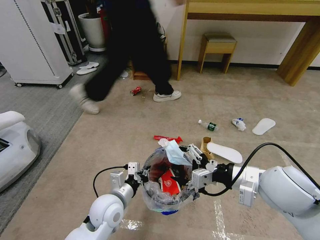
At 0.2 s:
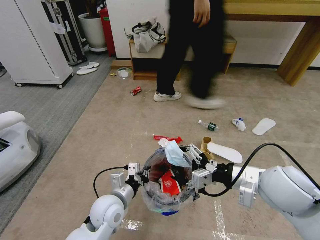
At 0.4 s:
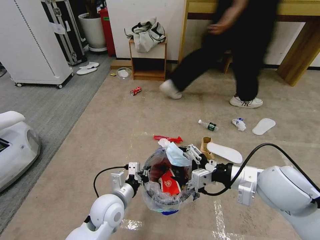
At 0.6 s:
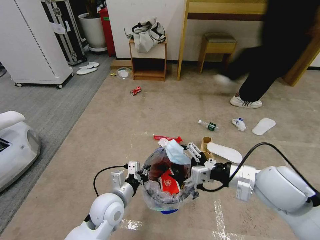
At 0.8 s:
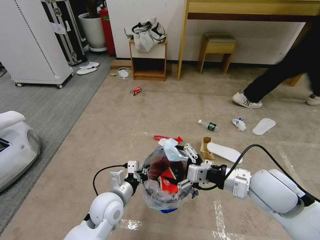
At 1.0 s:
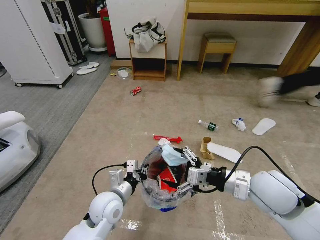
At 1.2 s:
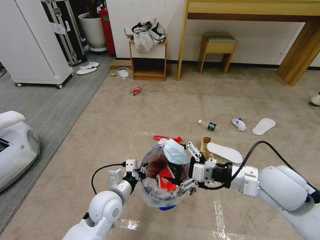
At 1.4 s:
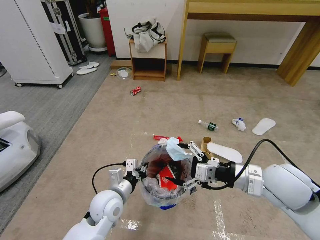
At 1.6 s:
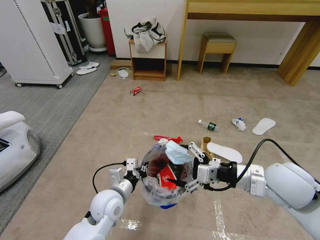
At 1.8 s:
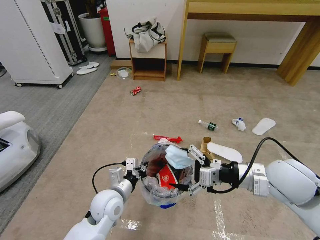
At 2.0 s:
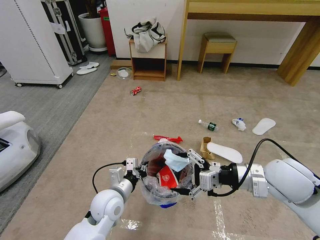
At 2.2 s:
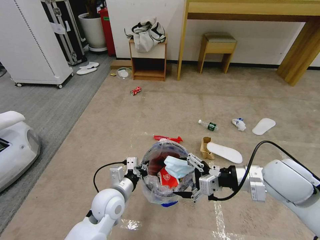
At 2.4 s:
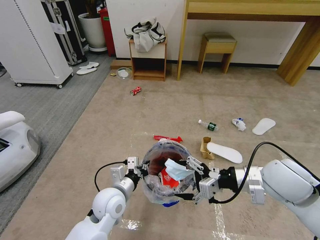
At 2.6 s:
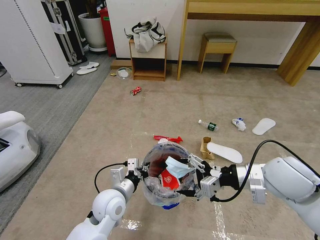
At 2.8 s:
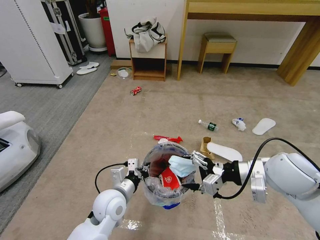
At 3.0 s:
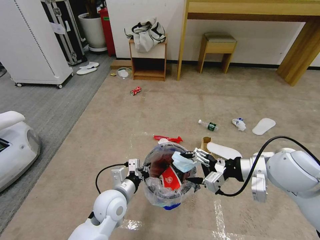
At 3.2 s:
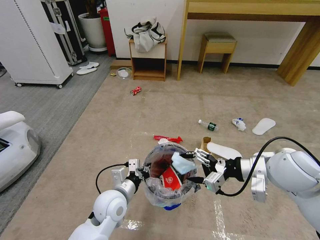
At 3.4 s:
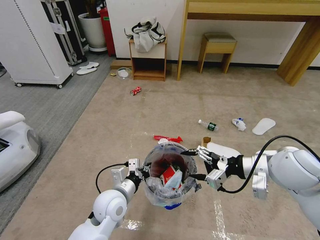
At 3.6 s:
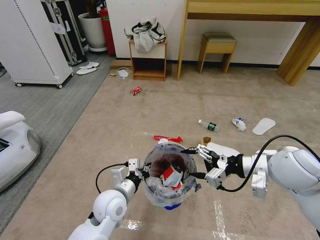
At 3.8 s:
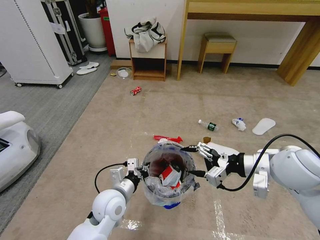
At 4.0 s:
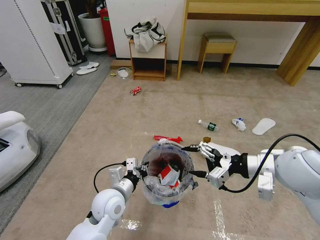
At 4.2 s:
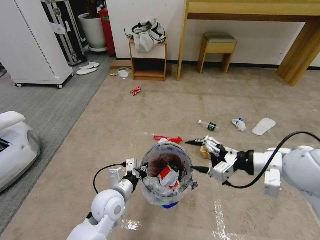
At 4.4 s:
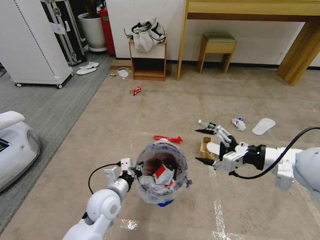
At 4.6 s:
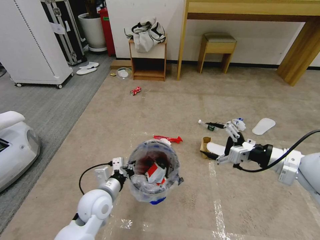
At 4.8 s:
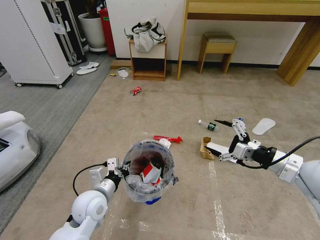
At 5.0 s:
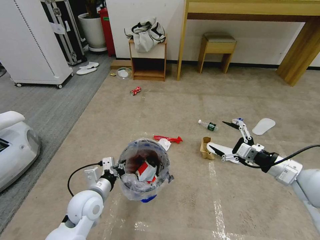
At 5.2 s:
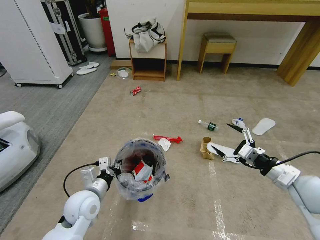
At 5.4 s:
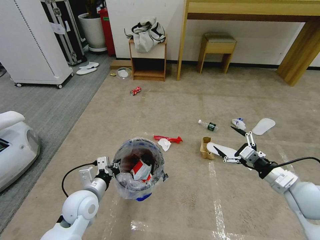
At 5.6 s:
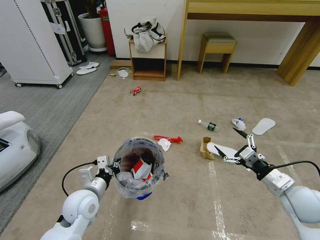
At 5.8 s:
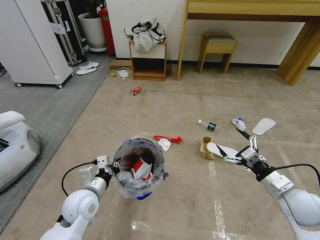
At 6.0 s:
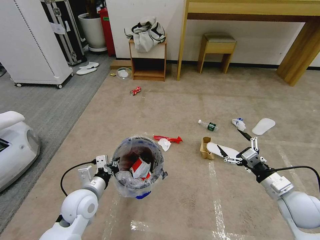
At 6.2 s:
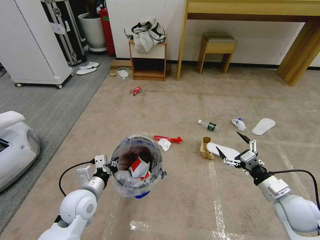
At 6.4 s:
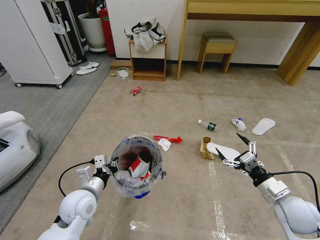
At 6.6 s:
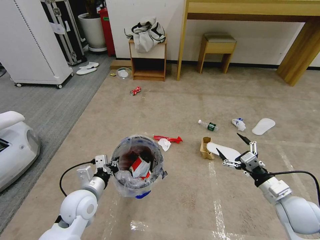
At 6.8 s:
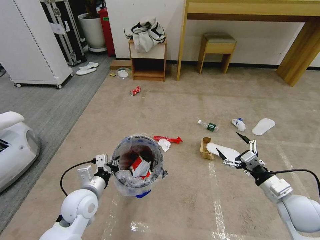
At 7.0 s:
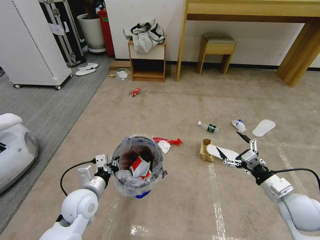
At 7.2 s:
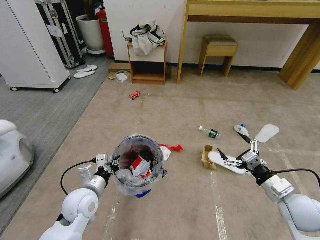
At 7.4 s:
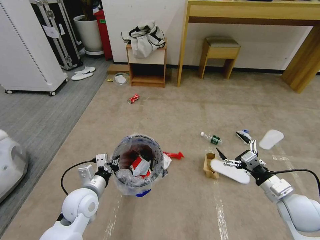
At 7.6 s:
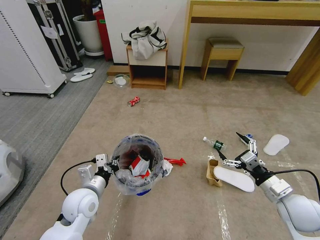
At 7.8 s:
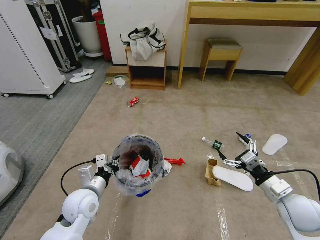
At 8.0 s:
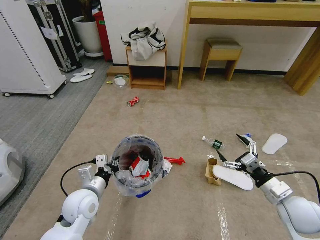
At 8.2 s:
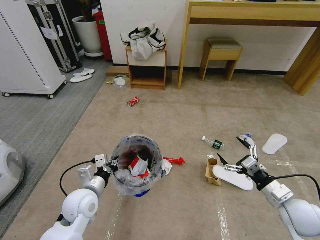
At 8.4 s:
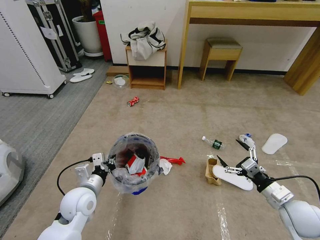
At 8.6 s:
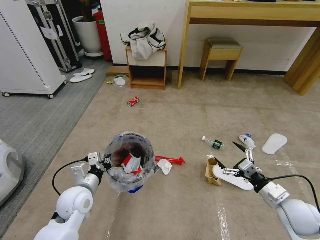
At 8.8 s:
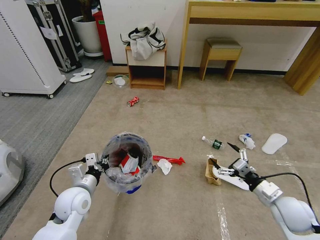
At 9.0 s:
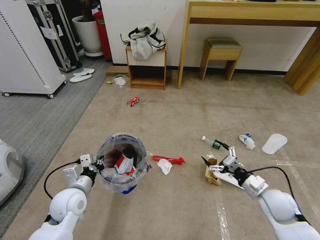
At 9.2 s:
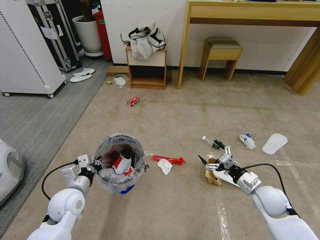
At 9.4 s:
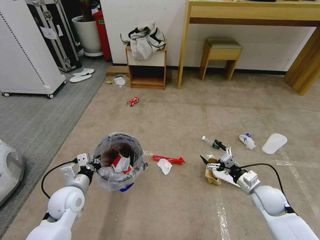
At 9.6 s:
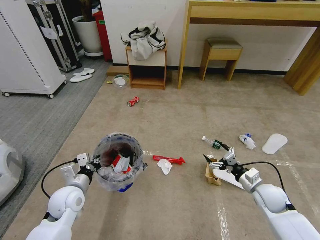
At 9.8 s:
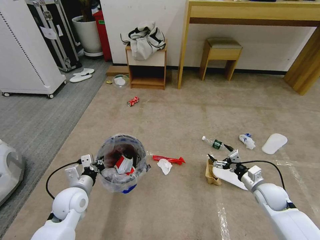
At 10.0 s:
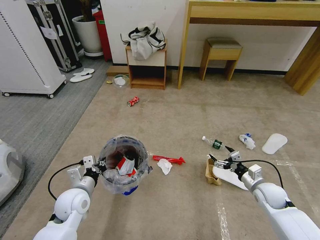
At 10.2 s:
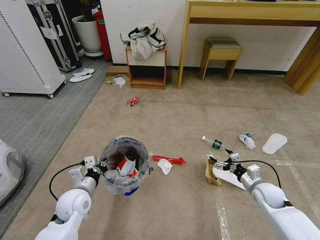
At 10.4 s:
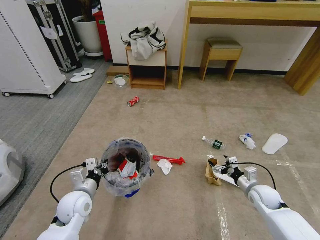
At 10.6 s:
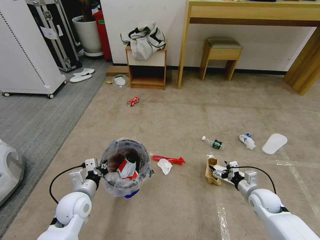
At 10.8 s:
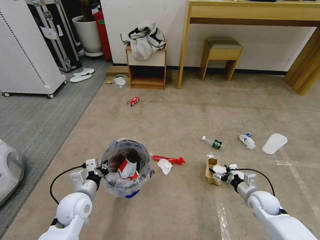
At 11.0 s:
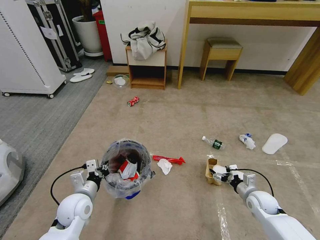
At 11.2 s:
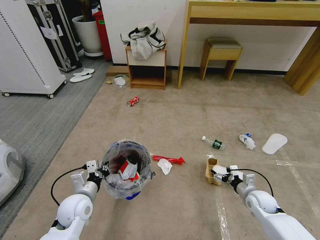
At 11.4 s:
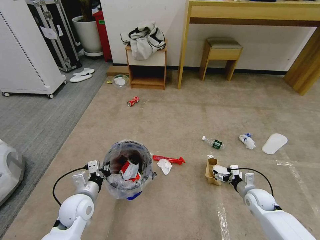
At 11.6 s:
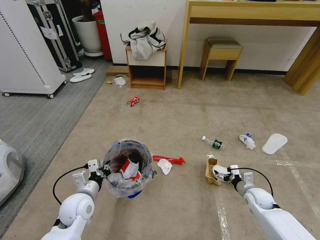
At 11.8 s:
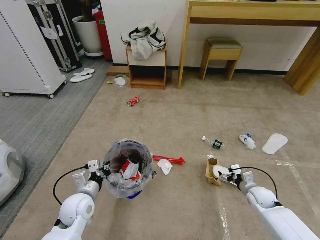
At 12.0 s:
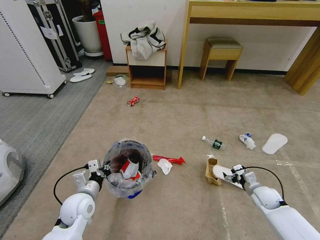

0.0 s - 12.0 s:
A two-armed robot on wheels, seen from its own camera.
Task of the whole recording: Pick up the trash bin and place the garbage on the floor into it.
0.0 s - 1.6 s: The grippers make only small movements.
3.0 s - 4.4 s: The right gripper changes place by some 5 cm.
4.4 s - 6.0 s: The right gripper is displaced downward by roughly 15 cm. Meanwhile the left gripper goes some 5 cm to the left.
7.6 s - 9.0 s: The right gripper ends up some 5 cm from where it was.
9.0 s - 10.4 s: The right gripper shifts some 10 cm downward and forward.

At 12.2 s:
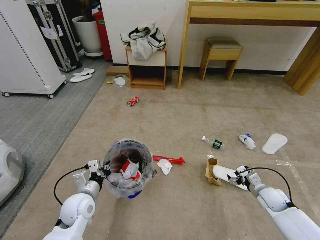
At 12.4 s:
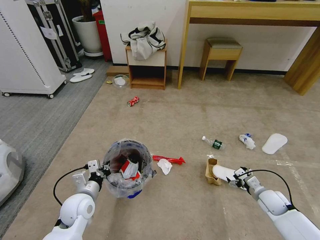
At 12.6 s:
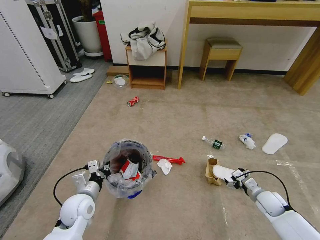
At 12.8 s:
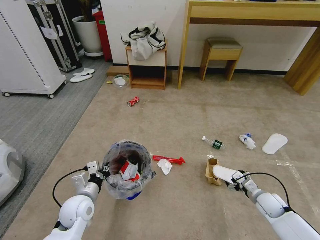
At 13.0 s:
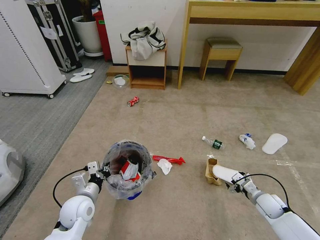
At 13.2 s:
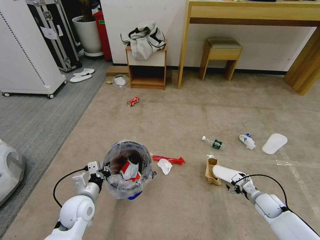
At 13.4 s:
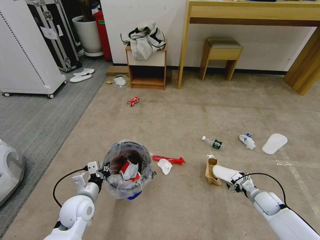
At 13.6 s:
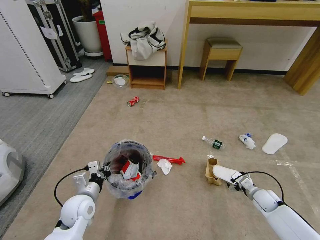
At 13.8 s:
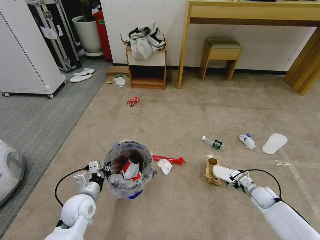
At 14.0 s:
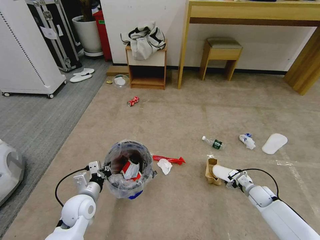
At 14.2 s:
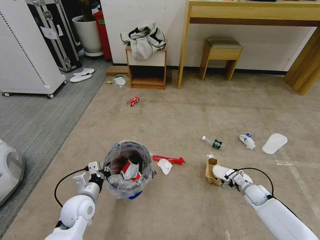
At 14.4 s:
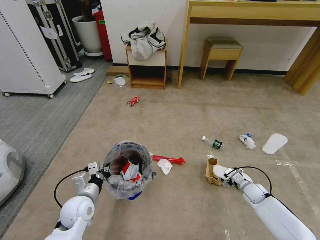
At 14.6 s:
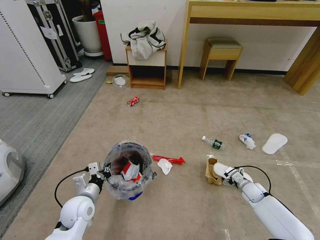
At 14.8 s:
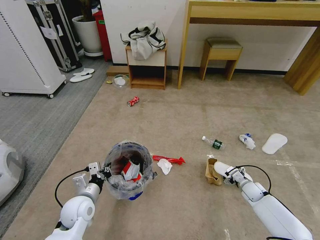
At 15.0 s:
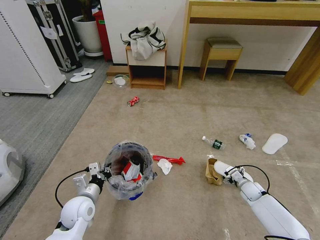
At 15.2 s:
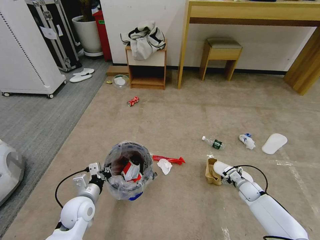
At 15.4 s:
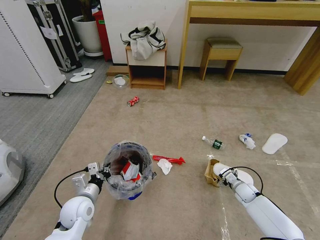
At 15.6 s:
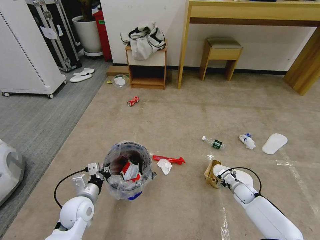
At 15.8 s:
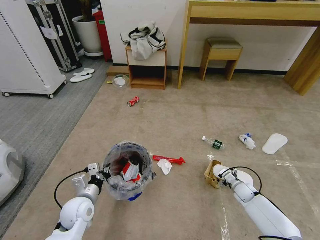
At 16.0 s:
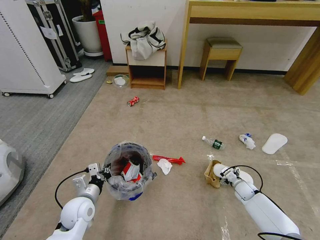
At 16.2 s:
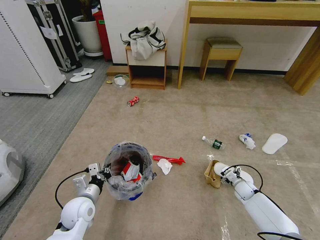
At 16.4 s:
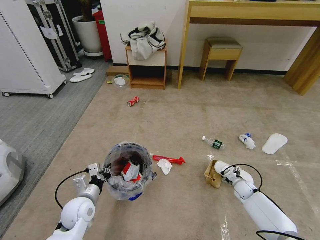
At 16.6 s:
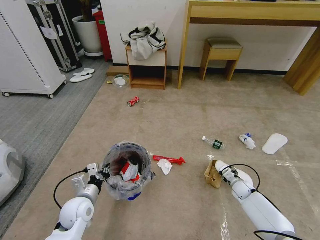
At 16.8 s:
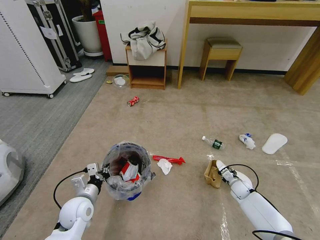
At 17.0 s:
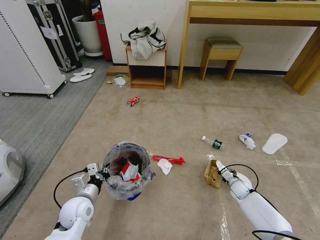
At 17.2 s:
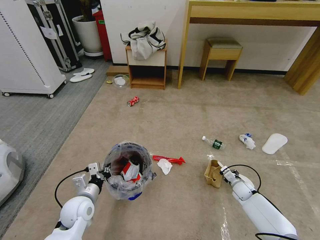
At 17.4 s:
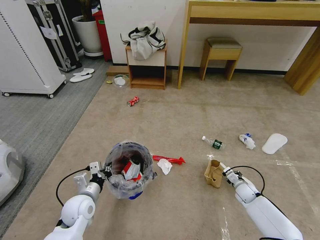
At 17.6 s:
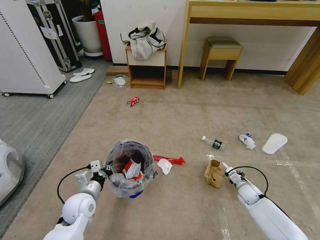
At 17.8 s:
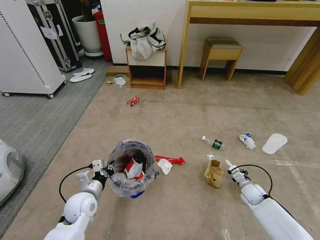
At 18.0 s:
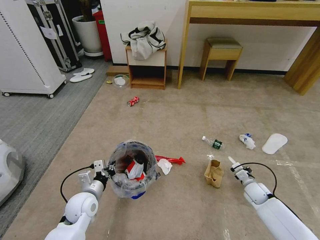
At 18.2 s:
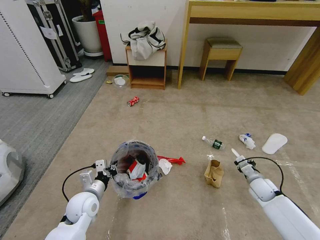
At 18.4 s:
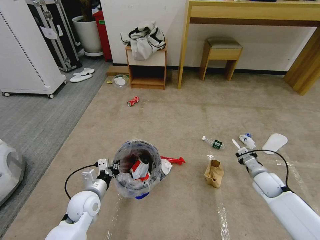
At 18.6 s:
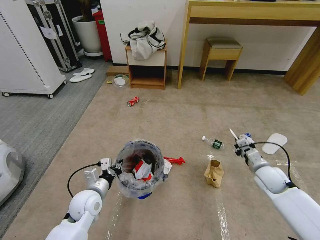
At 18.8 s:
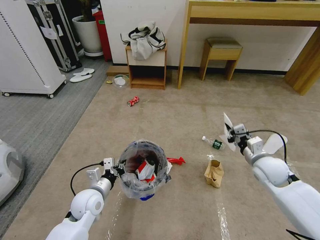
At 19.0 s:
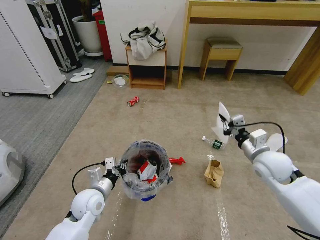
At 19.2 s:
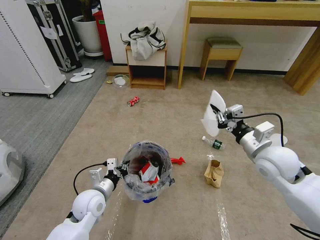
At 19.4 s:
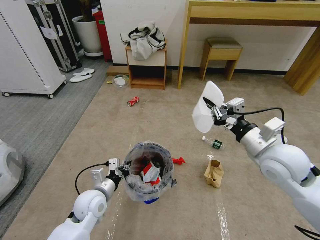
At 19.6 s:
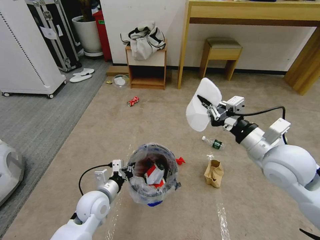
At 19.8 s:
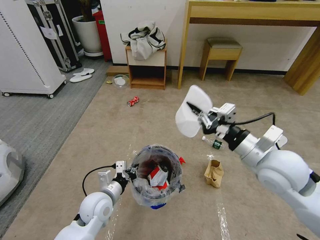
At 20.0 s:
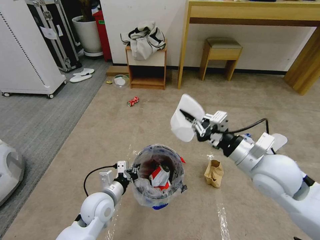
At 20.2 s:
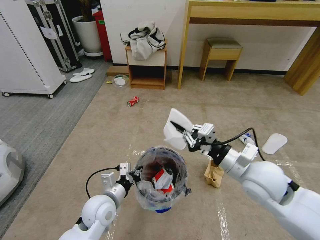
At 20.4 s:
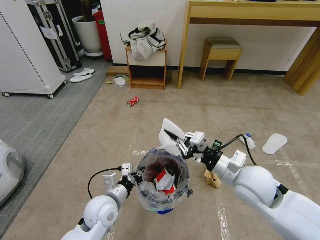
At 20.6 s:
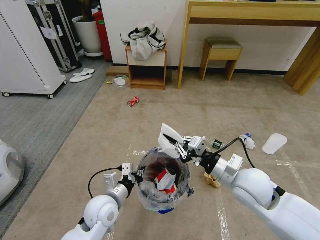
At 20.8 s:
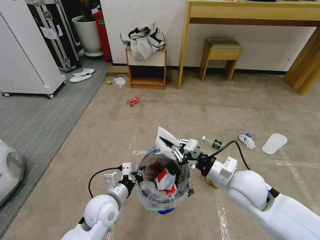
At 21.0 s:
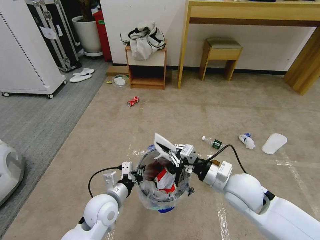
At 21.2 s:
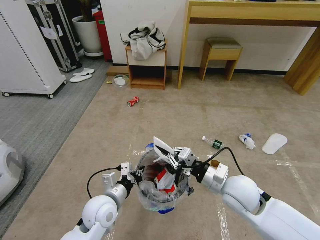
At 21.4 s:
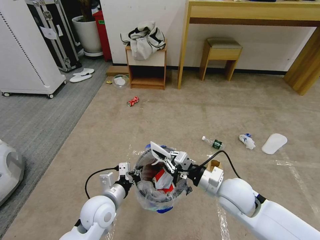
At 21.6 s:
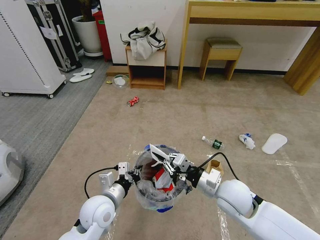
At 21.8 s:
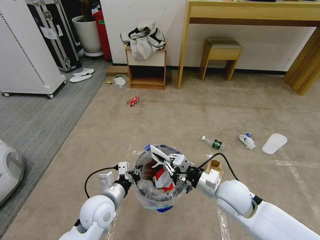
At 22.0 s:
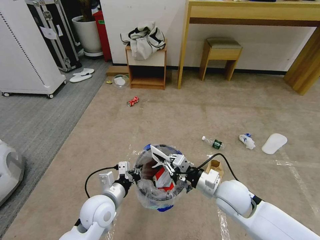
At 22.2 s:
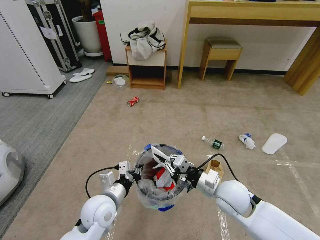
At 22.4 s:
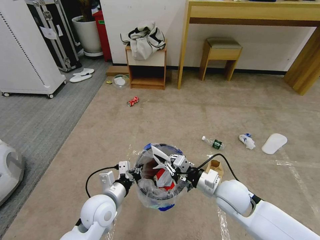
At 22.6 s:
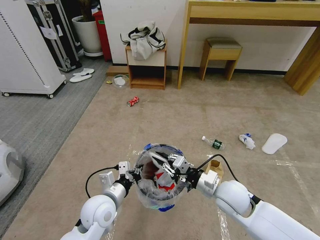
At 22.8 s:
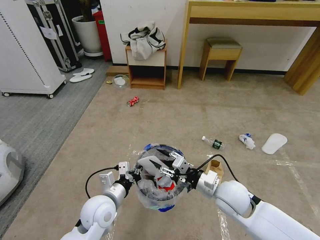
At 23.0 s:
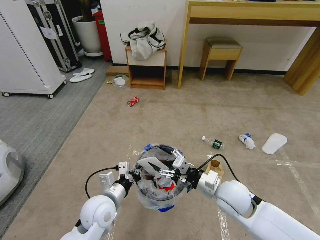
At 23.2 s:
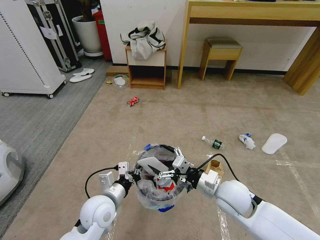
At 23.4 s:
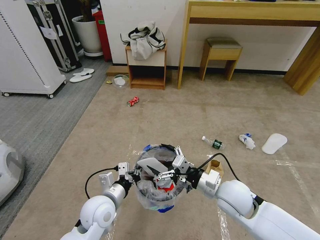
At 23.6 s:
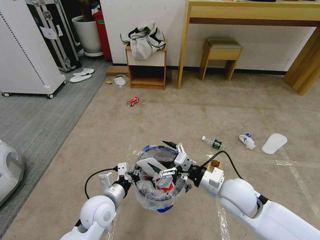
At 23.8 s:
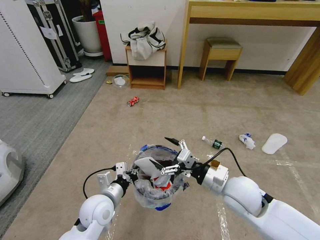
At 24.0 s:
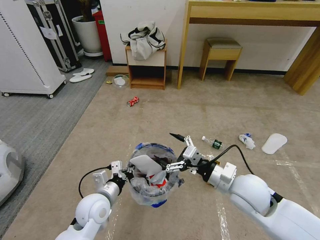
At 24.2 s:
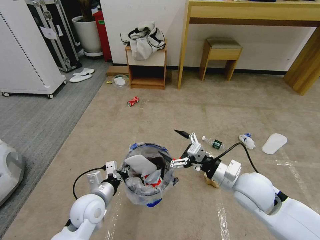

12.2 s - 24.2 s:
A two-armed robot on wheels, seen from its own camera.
Task of the whole recording: Pick up the trash bin and place the garbage on the floor into it.
12.2 s - 13.8 s: The grippers move only a little.
13.8 s - 15.2 s: The right gripper shifts by approximately 5 cm.
15.2 s - 16.6 s: The grippers stay close to where they were, moving slightly.
16.6 s - 18.2 s: The right gripper moves upward, about 10 cm, and closes.
18.2 s - 19.8 s: The right gripper shifts roughly 35 cm upward and to the left. The left gripper is displaced to the right by approximately 5 cm.
19.8 s - 21.2 s: The right gripper is displaced downward and to the left by about 15 cm.
21.2 s - 22.6 s: The grippers move only a little.
22.6 s - 24.2 s: The right gripper heads upward, covering roughly 5 cm, and opens its fingers.
